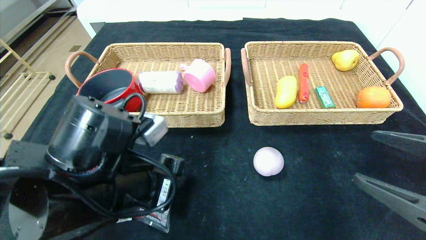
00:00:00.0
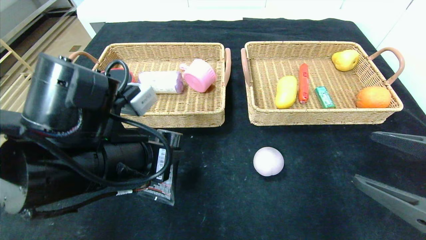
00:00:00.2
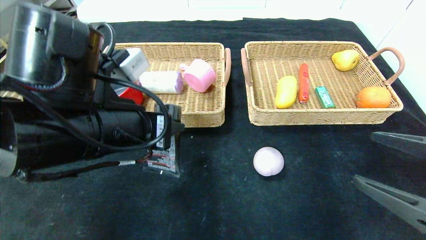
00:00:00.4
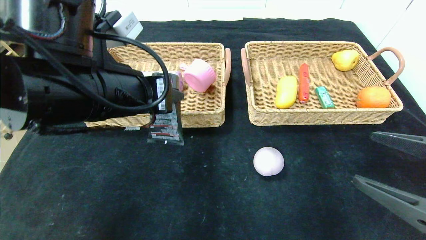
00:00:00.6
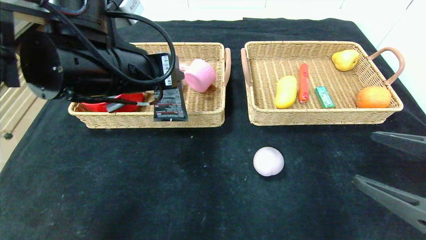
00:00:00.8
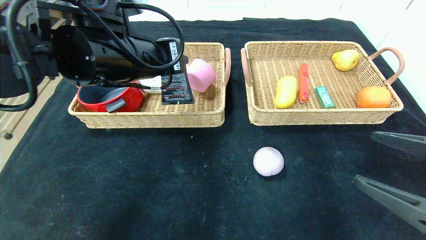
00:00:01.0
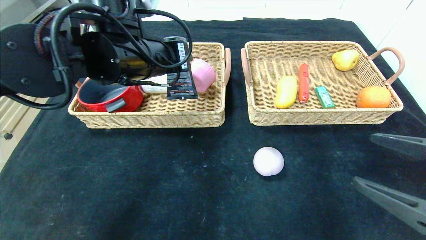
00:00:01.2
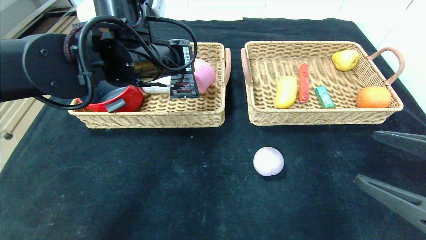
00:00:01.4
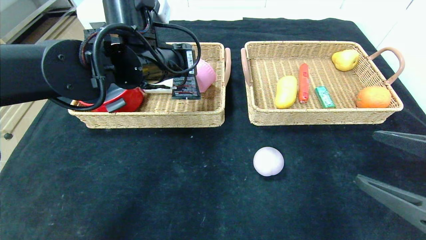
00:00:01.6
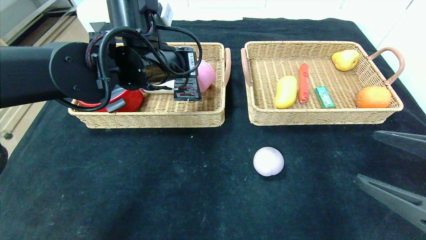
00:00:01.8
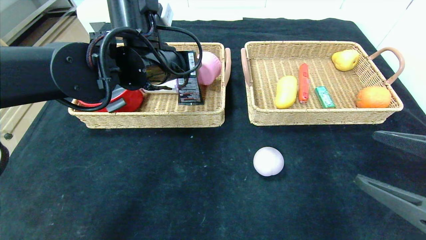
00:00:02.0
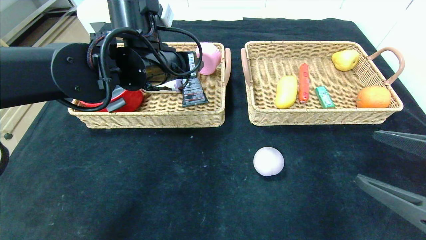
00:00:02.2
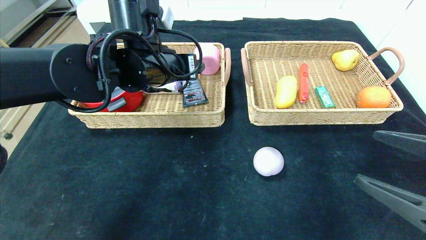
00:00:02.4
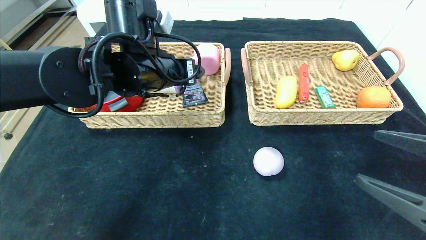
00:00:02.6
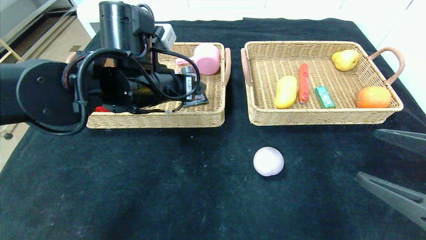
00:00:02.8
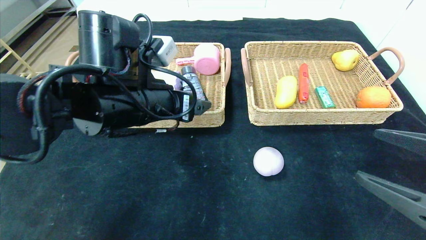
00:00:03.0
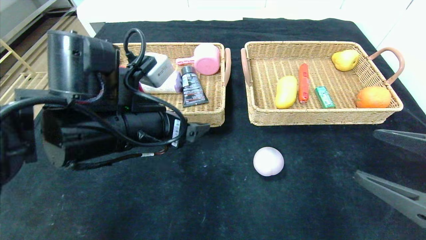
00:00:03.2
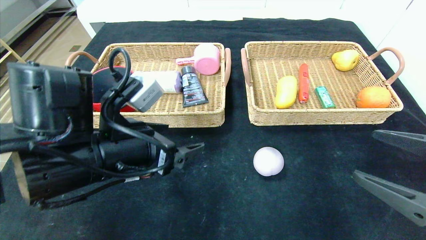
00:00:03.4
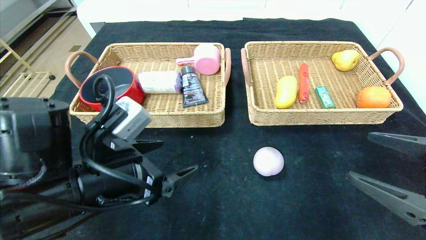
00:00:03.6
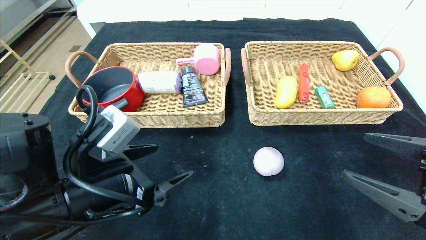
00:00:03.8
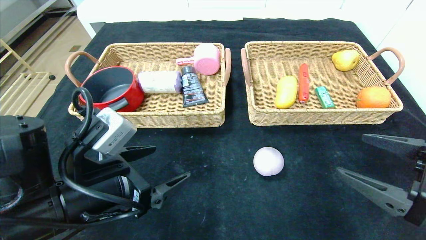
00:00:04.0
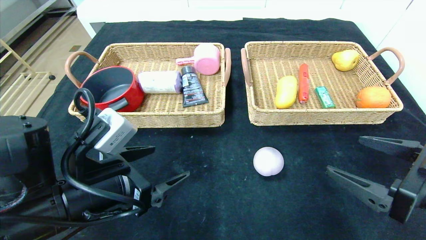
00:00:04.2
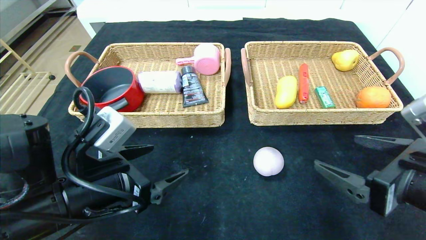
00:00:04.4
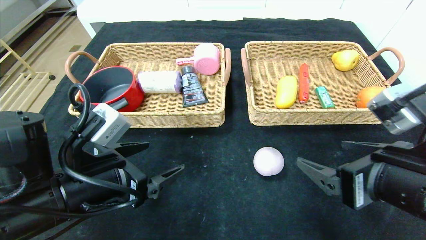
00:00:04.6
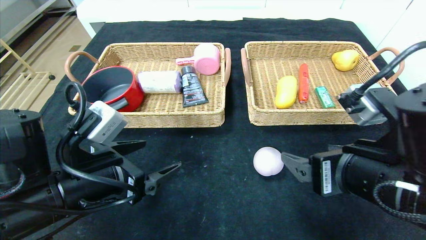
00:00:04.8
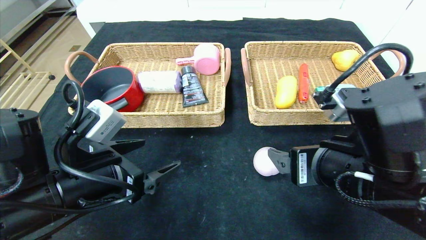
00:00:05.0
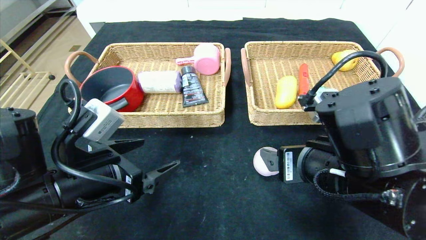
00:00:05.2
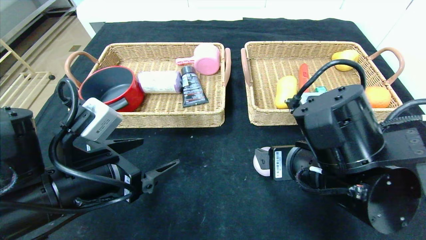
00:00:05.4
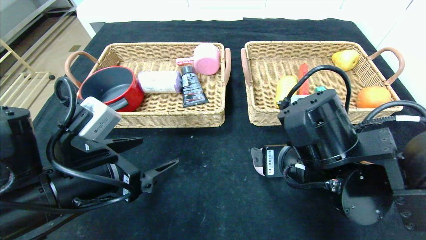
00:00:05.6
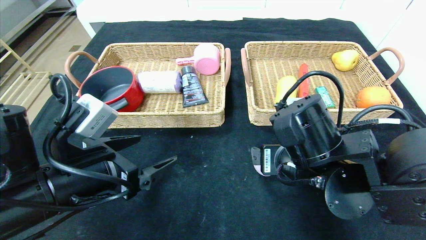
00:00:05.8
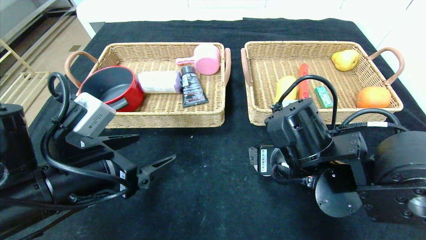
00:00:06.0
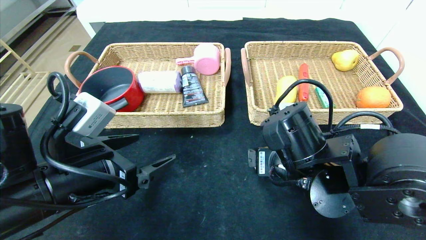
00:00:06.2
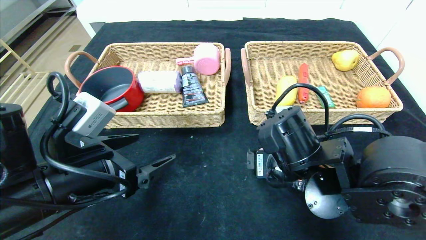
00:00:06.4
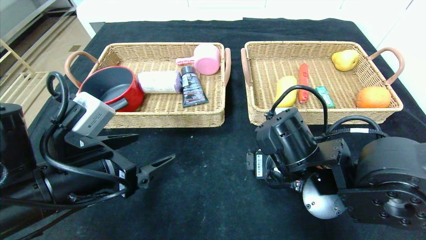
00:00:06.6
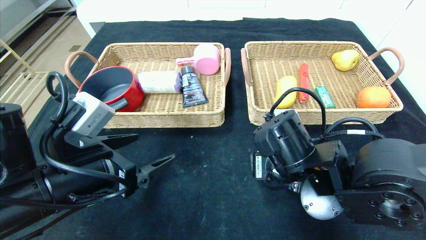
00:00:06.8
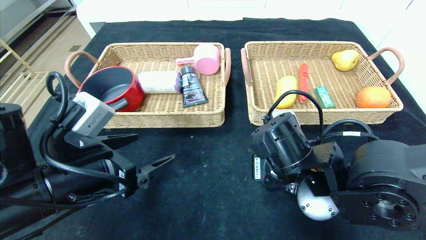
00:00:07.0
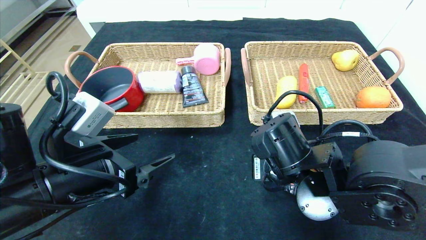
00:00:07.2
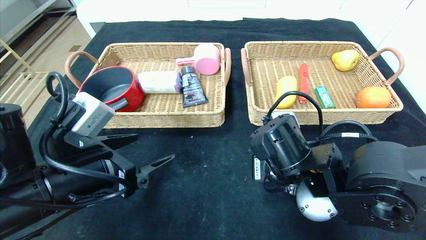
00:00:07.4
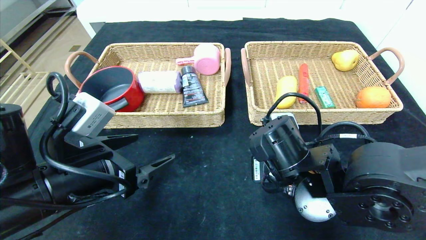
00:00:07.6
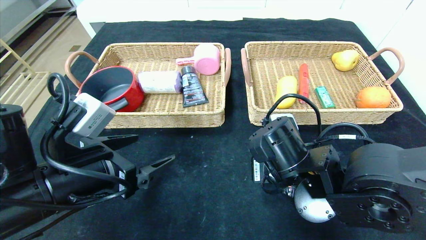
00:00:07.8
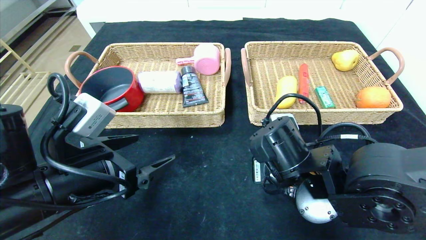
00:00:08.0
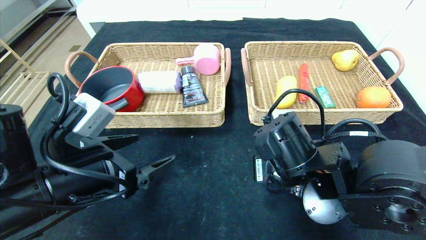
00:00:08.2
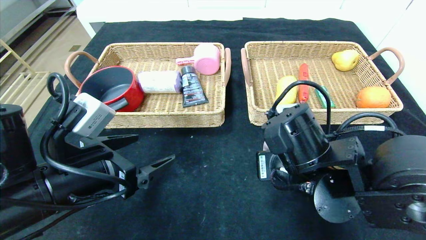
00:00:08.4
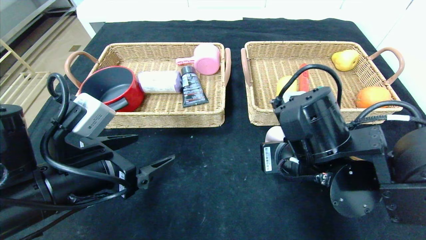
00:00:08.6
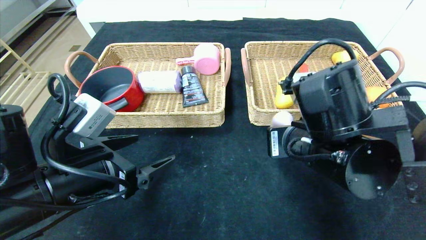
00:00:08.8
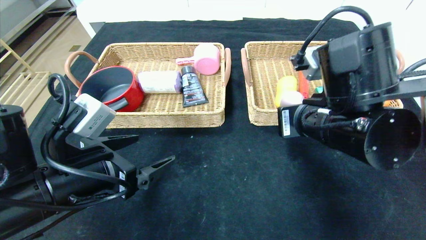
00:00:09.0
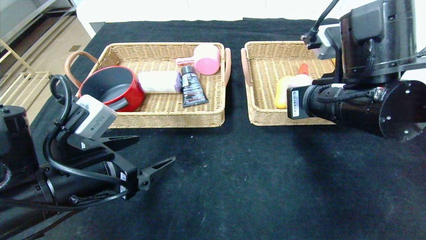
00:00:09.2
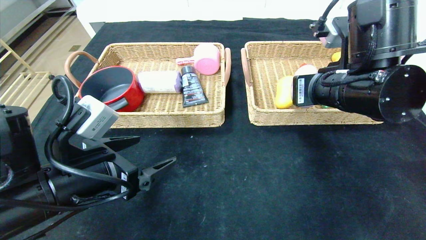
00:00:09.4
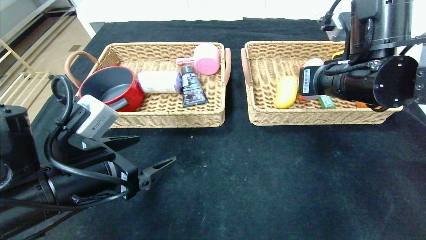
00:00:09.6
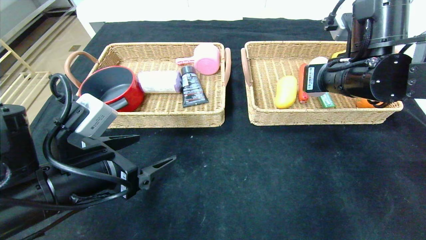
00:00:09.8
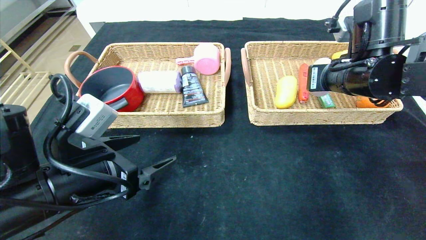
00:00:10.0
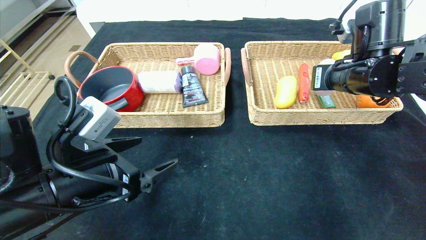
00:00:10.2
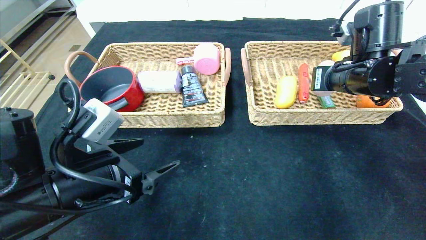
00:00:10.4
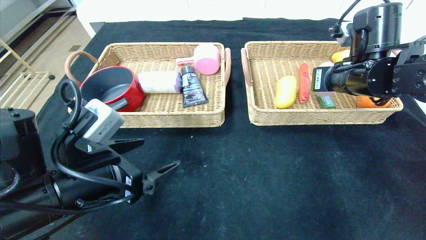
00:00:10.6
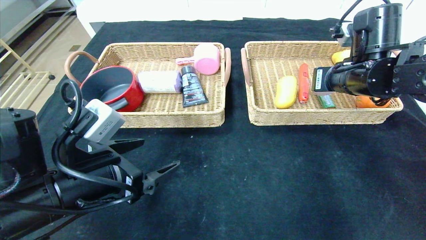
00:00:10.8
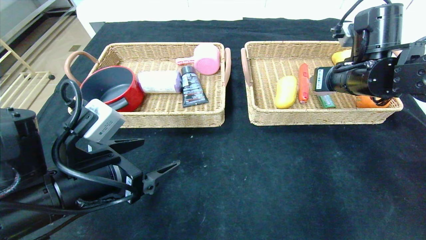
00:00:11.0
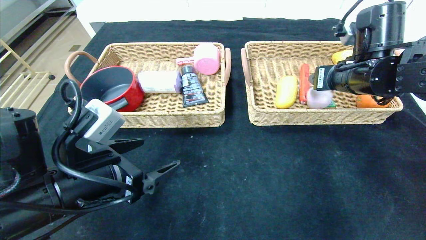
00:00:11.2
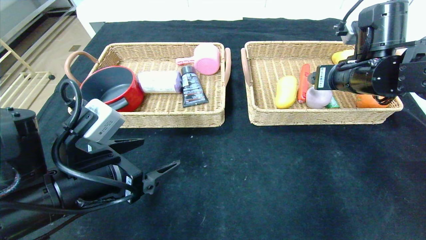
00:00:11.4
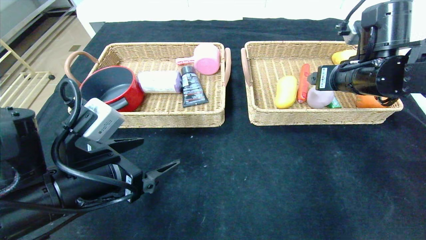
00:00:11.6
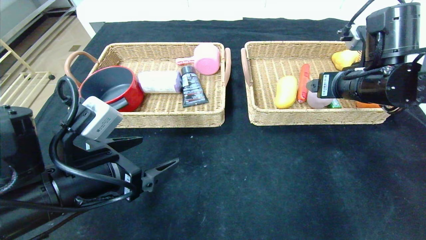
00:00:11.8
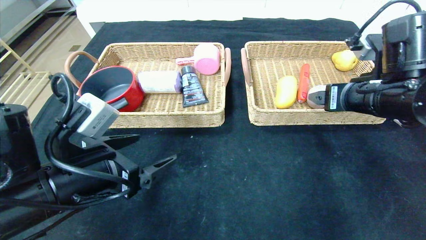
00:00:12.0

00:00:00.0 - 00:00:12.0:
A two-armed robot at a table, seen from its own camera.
Step, 00:00:00.0 - 00:00:02.0: Grasp the soft cleanser and put it in the left basket.
Step, 00:00:02.2 - 00:00:11.2: Grasp the peach and put it in the left basket.
00:00:00.0 - 00:00:01.6: The left gripper heads forward and upward, covering approximately 20 cm.
00:00:01.6 - 00:00:03.0: The left gripper shifts approximately 10 cm backward, and opens up.
00:00:03.0 - 00:00:04.4: The left gripper shifts approximately 10 cm backward, downward and to the left; the right gripper shifts about 5 cm to the left.
00:00:04.4 - 00:00:06.0: The right gripper travels to the left and forward by roughly 15 cm.
00:00:06.0 - 00:00:07.6: The right gripper closes up.
00:00:07.6 - 00:00:09.0: The right gripper travels upward by some 10 cm.
00:00:09.0 - 00:00:10.4: The right gripper is displaced forward and to the right by approximately 15 cm.
00:00:10.4 - 00:00:12.0: The right gripper shifts about 5 cm backward, and opens up.

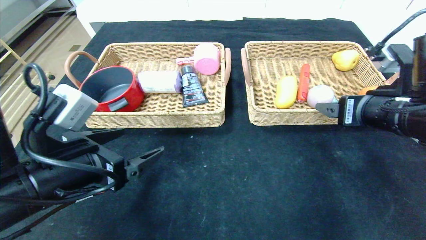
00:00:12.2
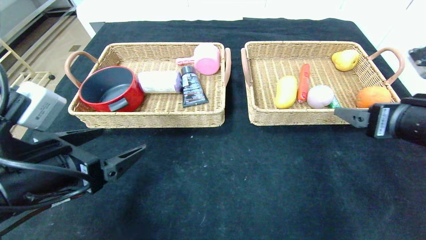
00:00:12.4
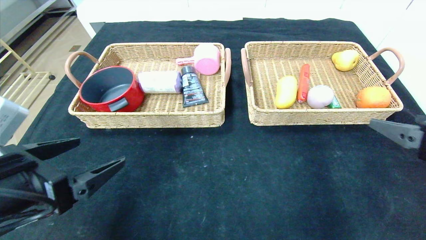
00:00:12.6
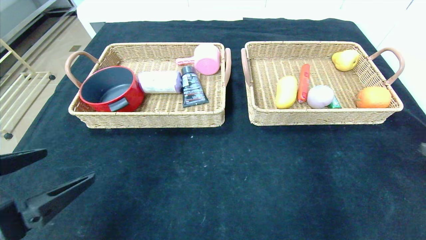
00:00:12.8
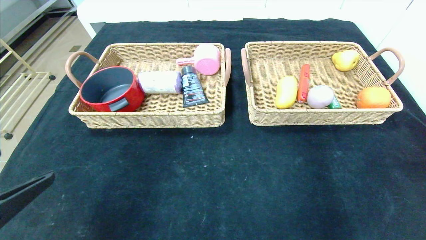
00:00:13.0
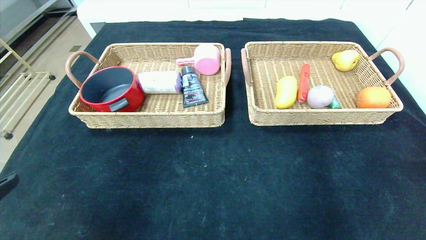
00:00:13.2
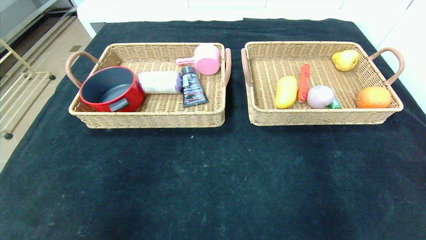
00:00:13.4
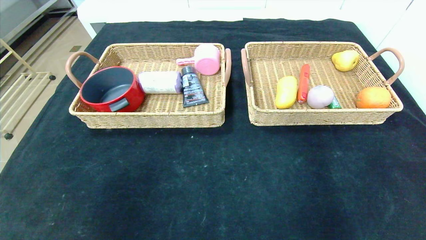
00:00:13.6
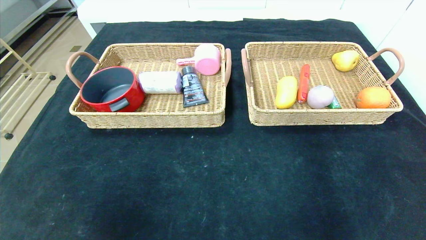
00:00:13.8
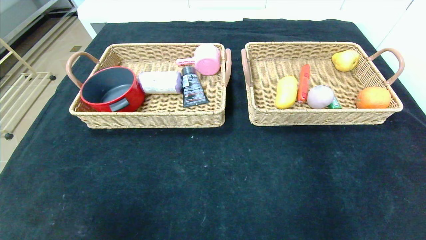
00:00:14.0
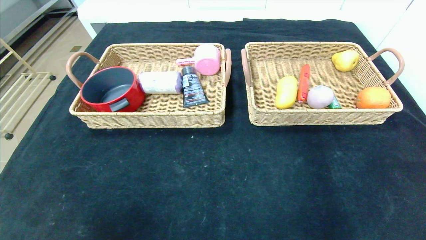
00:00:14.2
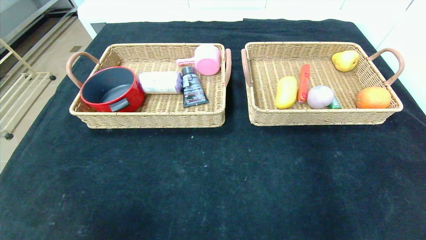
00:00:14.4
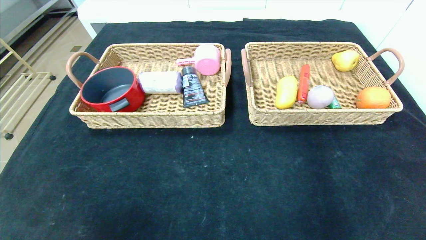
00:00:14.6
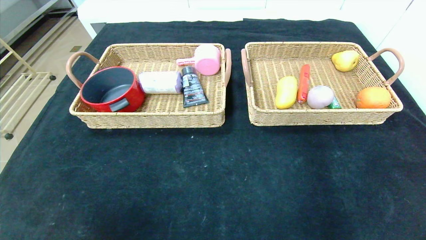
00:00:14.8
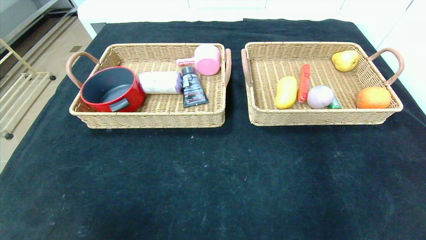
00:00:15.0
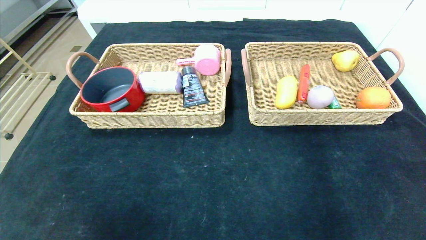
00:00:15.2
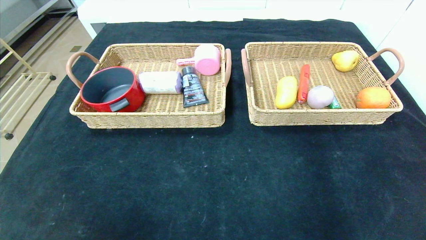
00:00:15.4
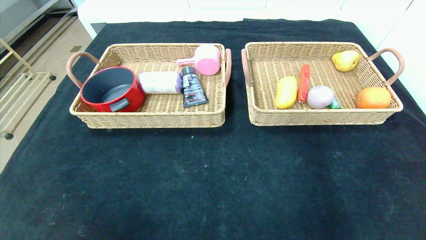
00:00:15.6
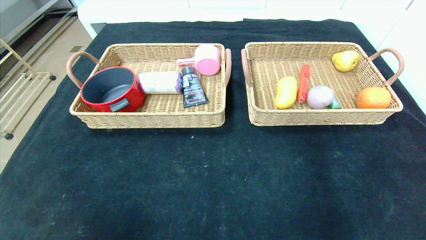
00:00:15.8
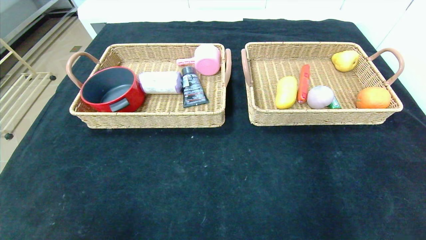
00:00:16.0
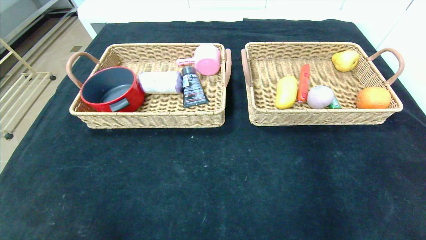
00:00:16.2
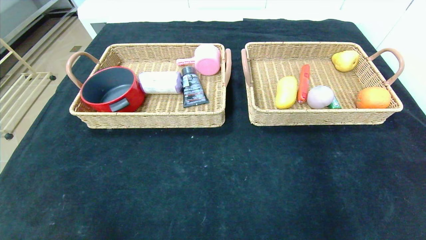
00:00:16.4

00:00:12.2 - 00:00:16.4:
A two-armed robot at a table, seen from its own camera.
00:00:12.2 - 00:00:13.6: The right gripper shifts about 30 cm backward. Meanwhile the left gripper shifts about 20 cm backward and to the left.
